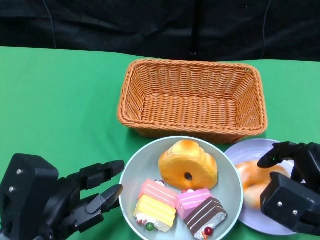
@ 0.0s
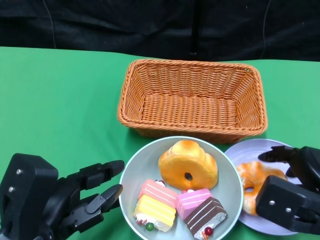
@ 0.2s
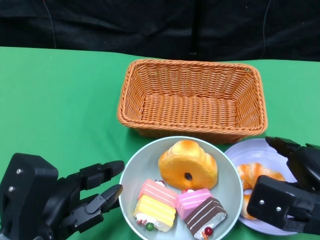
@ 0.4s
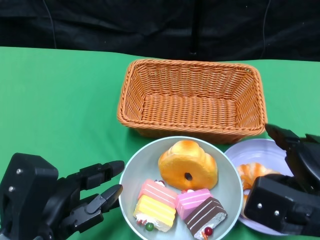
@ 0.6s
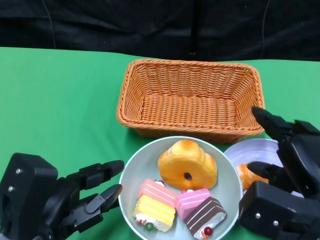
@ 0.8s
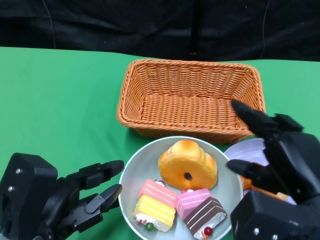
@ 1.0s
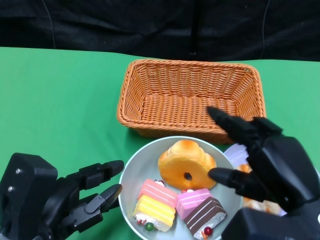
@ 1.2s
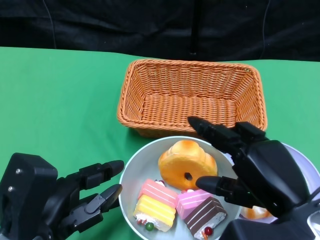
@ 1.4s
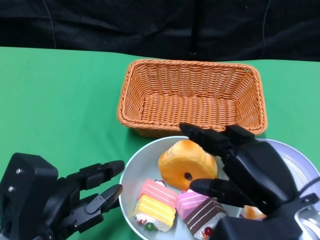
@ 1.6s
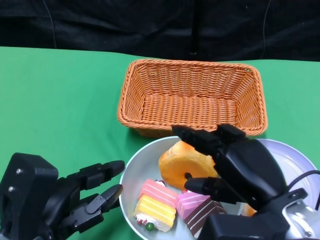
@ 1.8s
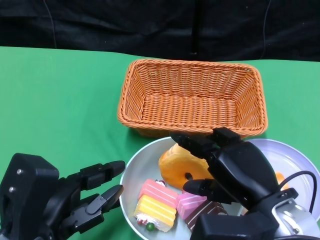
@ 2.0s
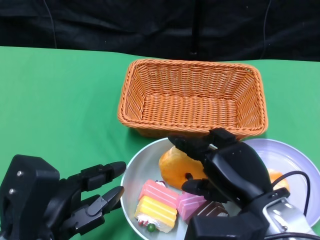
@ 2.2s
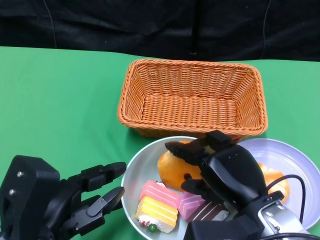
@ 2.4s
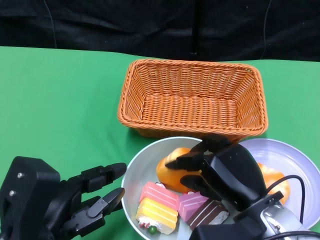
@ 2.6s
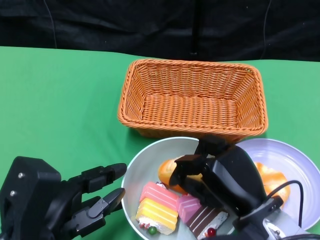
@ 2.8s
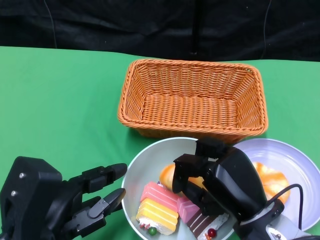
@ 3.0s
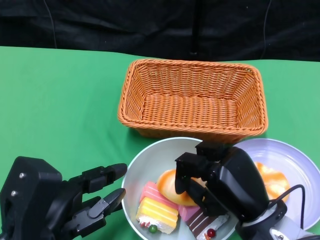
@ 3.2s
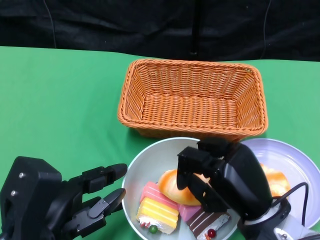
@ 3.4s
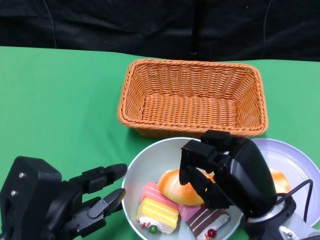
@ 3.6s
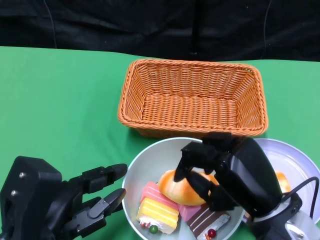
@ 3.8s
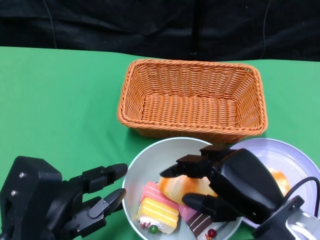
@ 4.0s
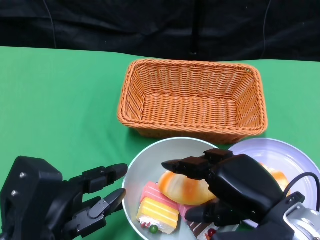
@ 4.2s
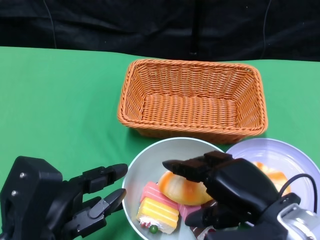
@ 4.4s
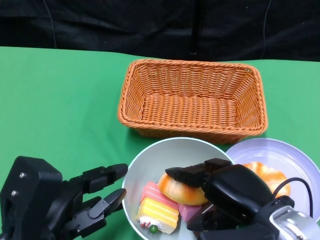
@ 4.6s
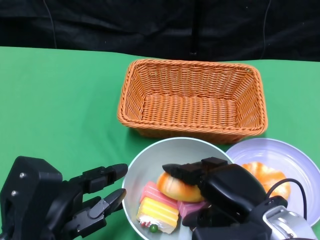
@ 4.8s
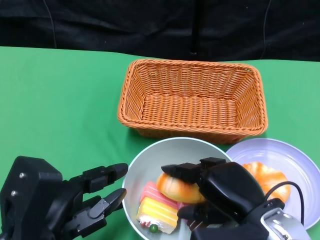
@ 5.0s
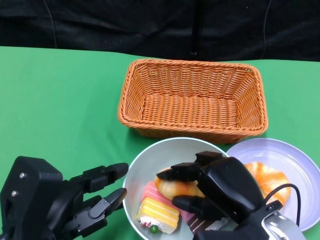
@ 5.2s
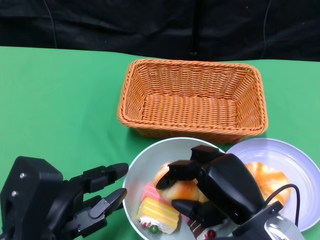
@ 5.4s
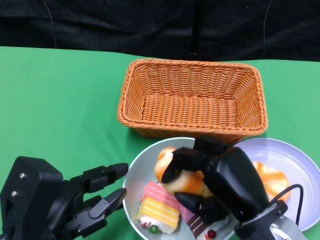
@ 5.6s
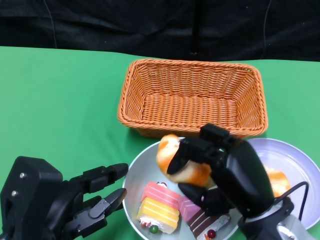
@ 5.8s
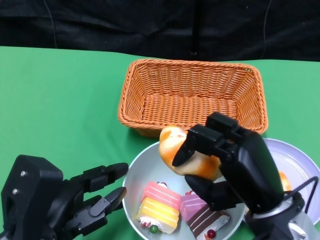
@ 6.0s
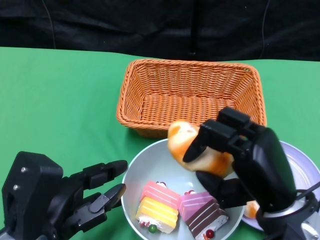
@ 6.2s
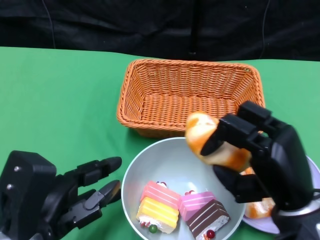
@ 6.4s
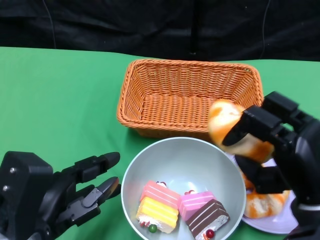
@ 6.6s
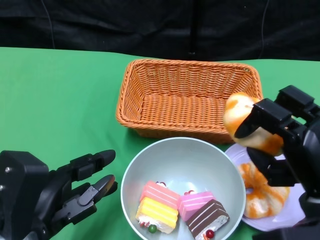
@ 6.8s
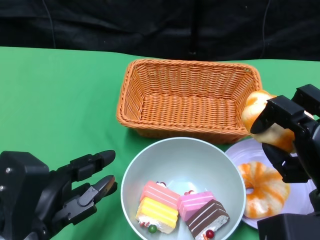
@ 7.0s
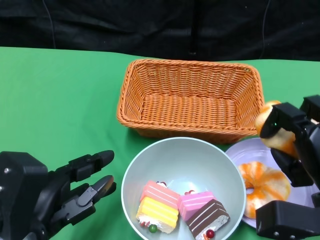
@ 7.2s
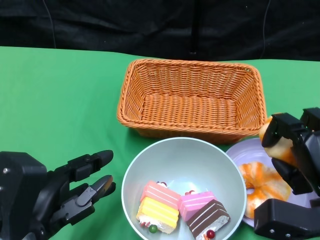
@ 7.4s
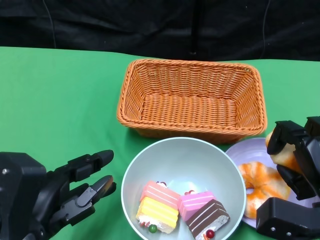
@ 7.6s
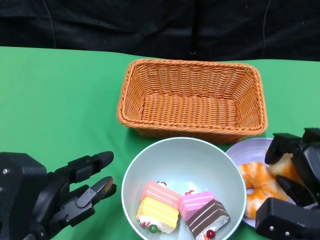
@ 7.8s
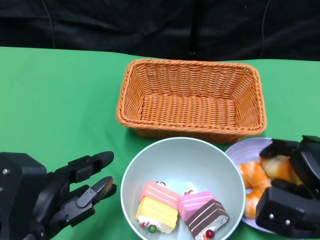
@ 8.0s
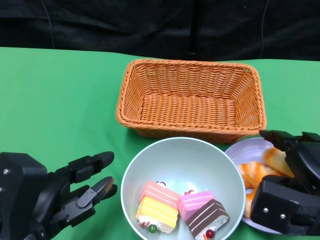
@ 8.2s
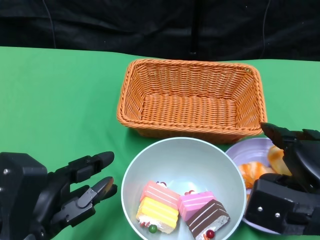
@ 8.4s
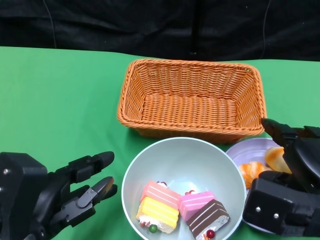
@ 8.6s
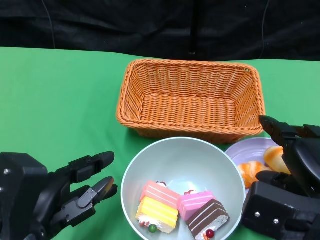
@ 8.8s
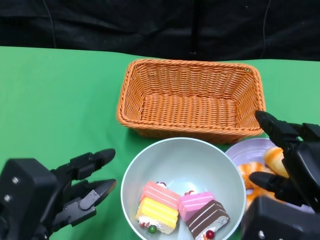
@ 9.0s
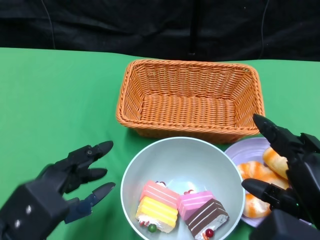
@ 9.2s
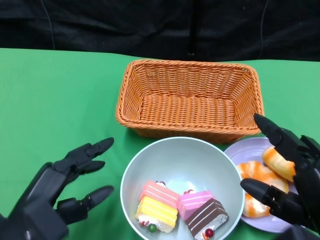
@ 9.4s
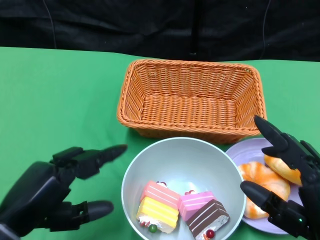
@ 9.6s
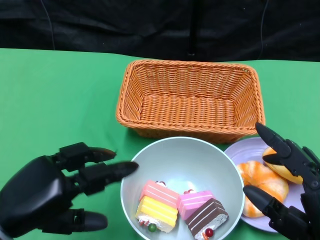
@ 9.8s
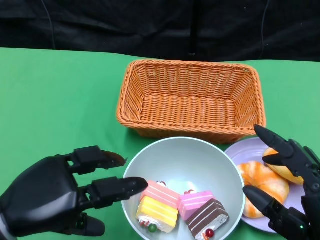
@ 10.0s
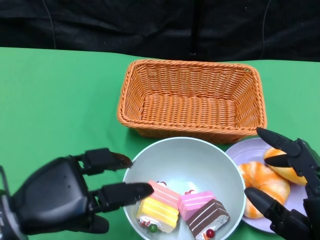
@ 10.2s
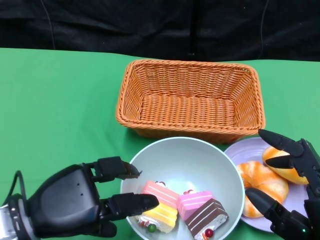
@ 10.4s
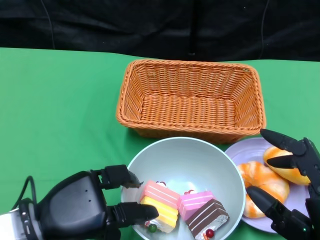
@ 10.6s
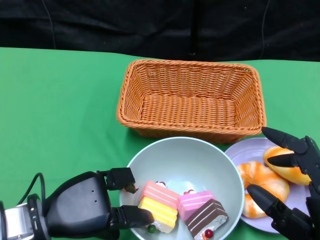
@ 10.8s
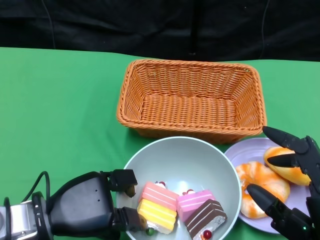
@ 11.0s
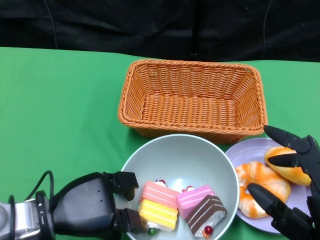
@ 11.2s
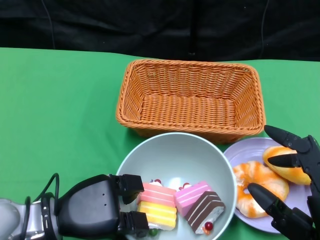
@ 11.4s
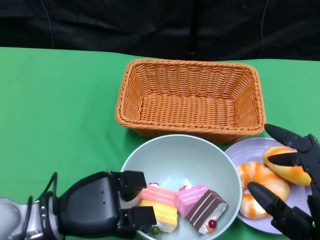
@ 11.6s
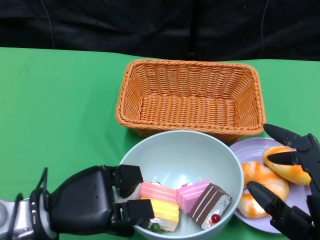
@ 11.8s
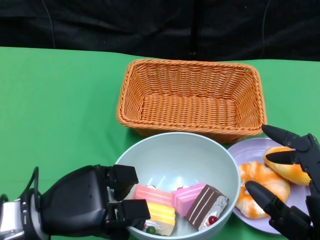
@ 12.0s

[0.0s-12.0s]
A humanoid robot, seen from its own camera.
Step, 0.0s to 8.8s: Pick up the bread with the right gripper and place it on the plate.
Step, 9.0s to 11.4s: Grasp the bowl with the left gripper.
0.0s to 1.6s: The right hand heads to the left and upward, covering approximately 10 cm.
1.6s to 3.0s: The right hand shifts roughly 5 cm downward.
3.0s to 4.4s: The right hand heads upward, covering approximately 5 cm.
6.0s to 7.6s: The right hand moves to the right, roughly 10 cm.
7.6s to 9.0s: The right hand travels upward by approximately 5 cm.
9.0s to 10.4s: The right hand moves backward, some 5 cm.

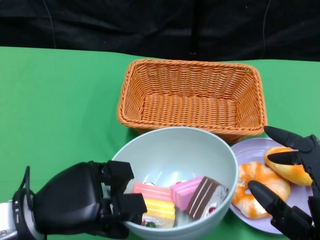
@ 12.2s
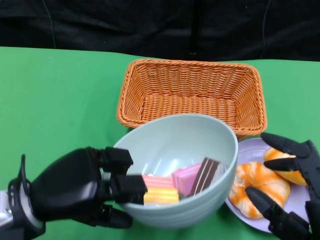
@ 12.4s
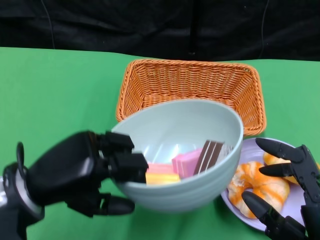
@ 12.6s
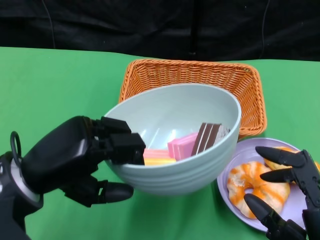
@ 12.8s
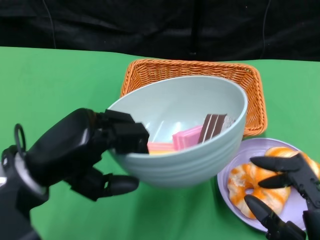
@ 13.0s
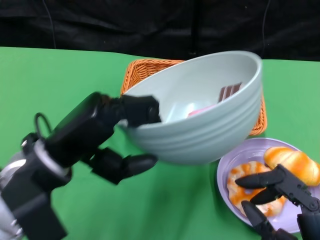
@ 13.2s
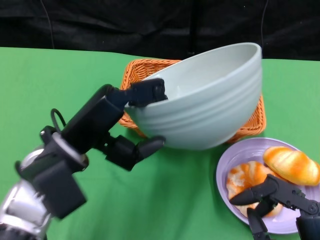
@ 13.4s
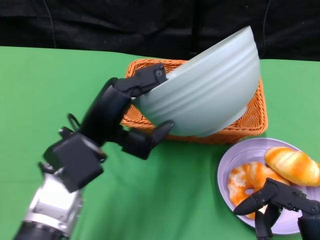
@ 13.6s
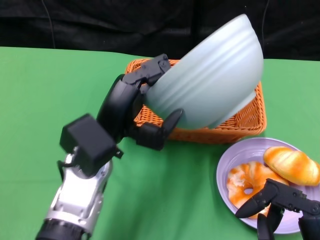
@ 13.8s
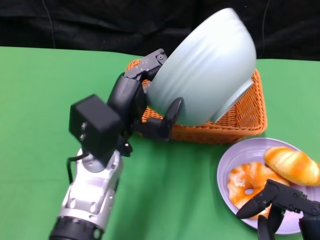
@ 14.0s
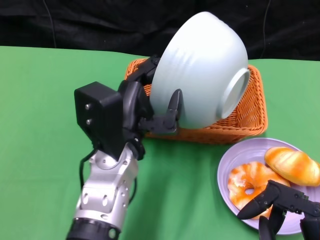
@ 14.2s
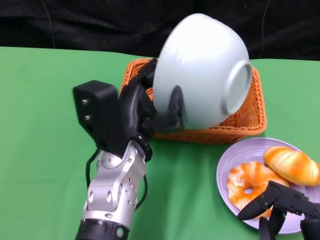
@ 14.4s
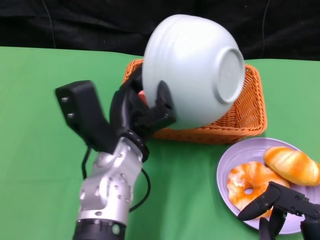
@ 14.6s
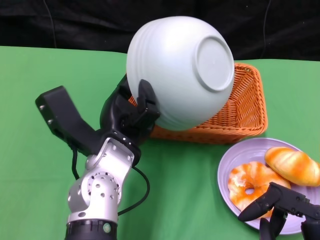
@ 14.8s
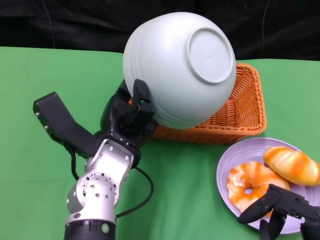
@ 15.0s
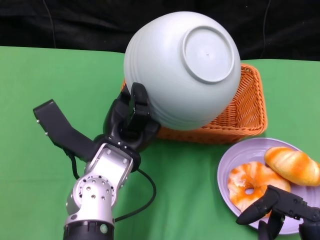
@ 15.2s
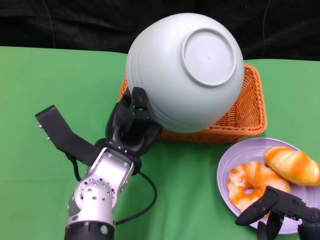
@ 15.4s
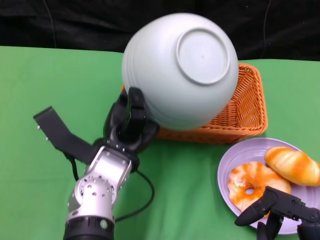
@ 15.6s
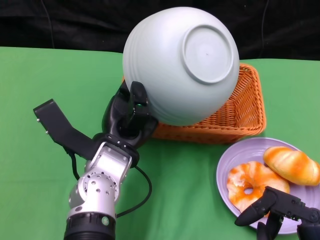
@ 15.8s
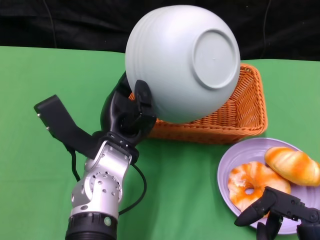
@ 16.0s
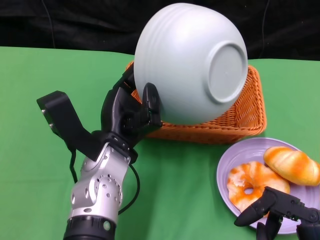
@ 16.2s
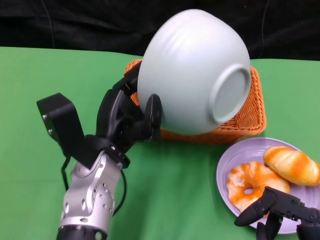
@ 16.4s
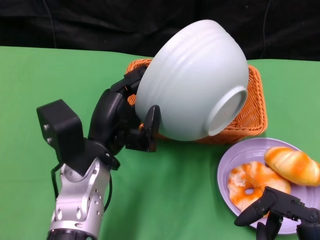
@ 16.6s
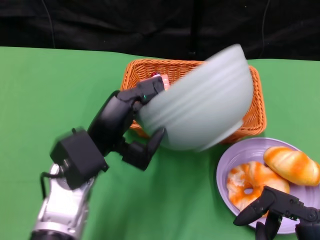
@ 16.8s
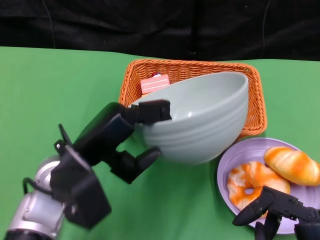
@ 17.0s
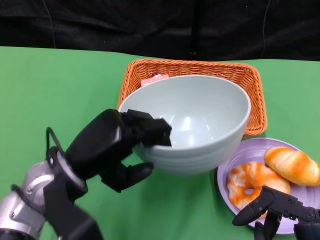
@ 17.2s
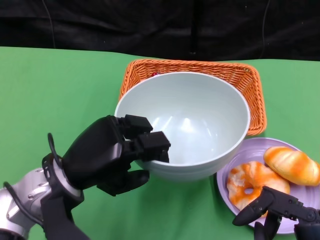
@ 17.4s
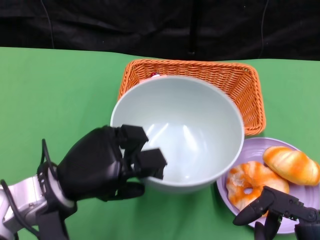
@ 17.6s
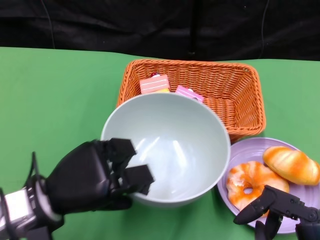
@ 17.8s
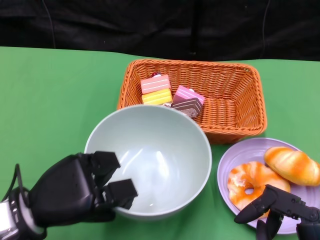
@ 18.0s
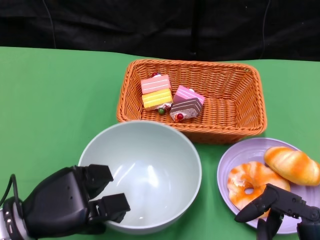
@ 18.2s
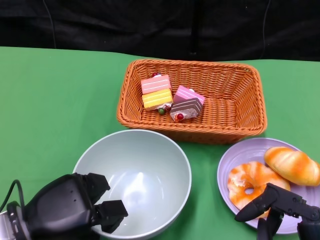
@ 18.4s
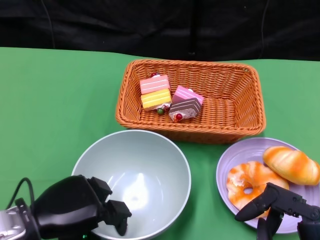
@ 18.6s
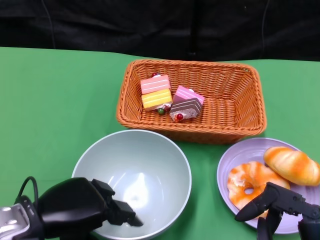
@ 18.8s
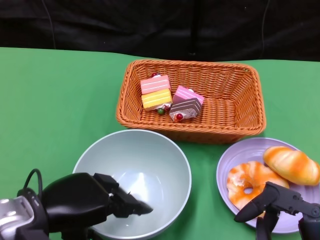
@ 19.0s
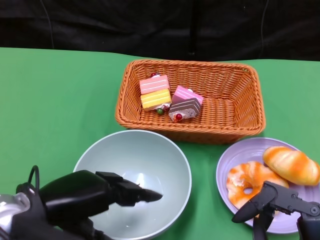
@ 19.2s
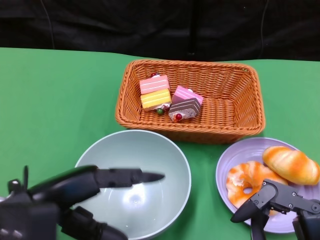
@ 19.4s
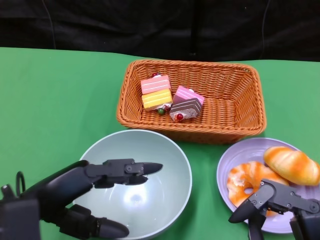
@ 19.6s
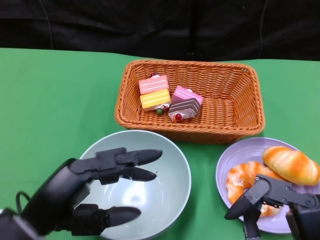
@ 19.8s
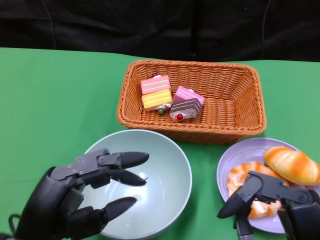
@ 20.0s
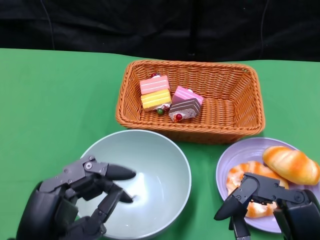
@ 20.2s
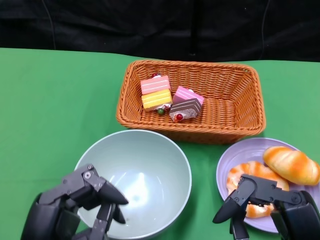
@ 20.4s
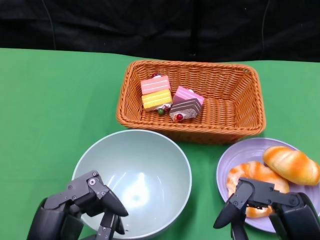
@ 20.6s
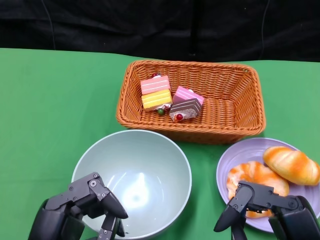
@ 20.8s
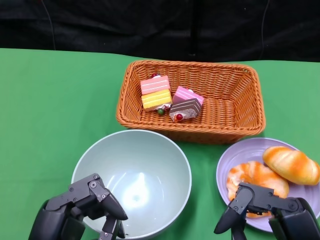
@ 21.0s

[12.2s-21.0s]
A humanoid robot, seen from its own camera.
Step, 12.2s to 15.8s: Pour the cake into the basket with the left gripper.
Step, 16.0s to 19.0s: Place the bowl on the table with the left gripper.
12.2s to 13.6s: The left hand travels to the right, forward and upward by some 10 cm.
13.6s to 15.2s: The left hand ends up roughly 5 cm from where it was.
16.6s to 18.0s: The left hand shifts some 10 cm to the left and backward.
18.0s to 19.6s: The left hand heads upward, covering about 5 cm.
19.6s to 21.0s: The left hand heads backward, covering about 10 cm.

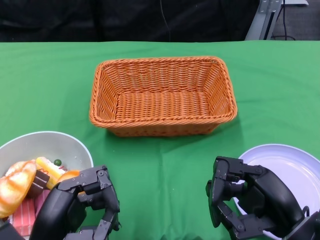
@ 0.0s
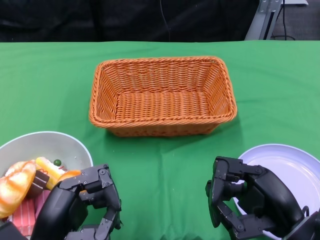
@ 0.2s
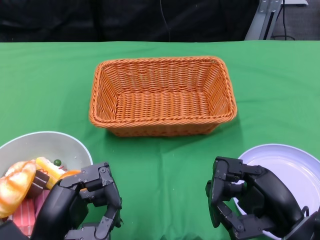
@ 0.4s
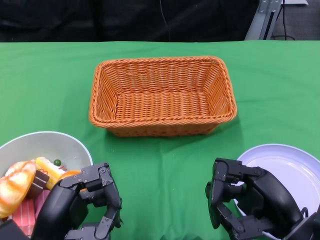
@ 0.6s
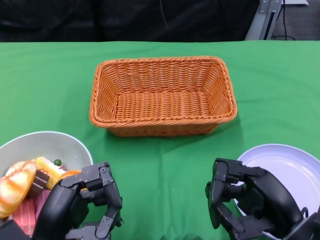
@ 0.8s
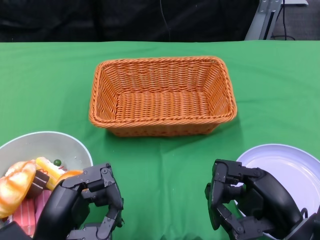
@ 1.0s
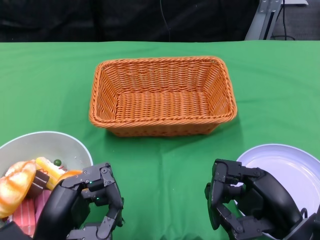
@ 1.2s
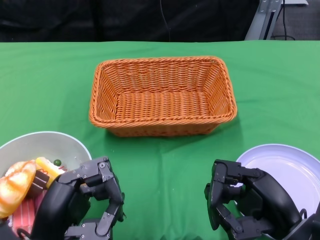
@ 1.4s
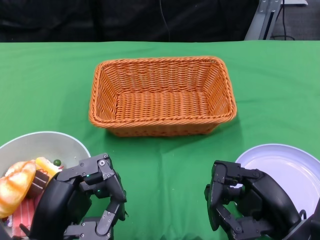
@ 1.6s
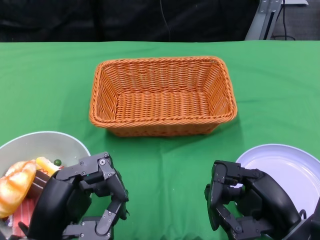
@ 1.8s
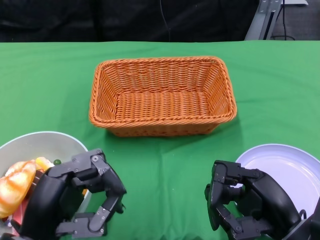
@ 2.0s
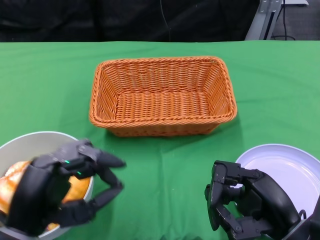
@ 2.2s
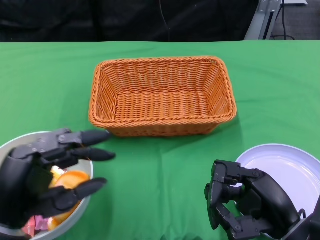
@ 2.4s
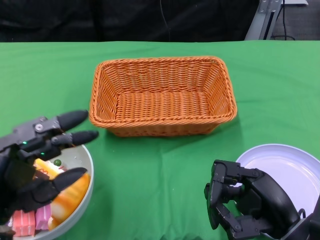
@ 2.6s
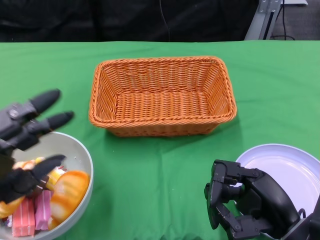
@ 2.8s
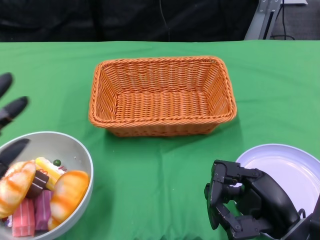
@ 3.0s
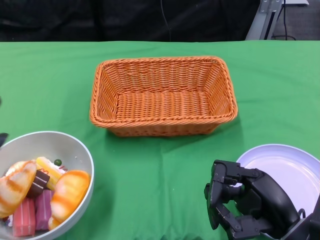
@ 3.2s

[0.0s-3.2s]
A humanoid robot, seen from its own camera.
1.6s to 3.2s: The left hand travels to the left by about 10 cm.
